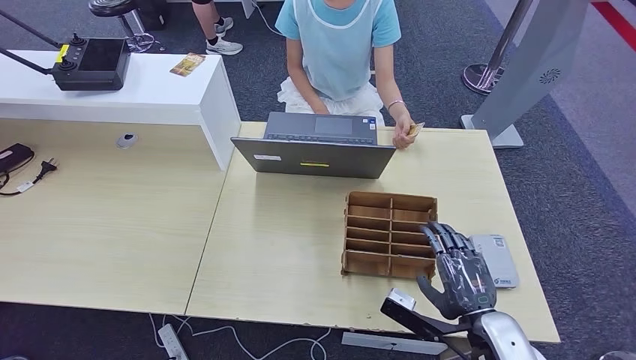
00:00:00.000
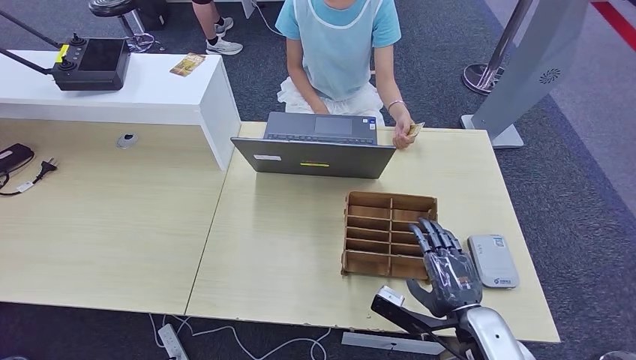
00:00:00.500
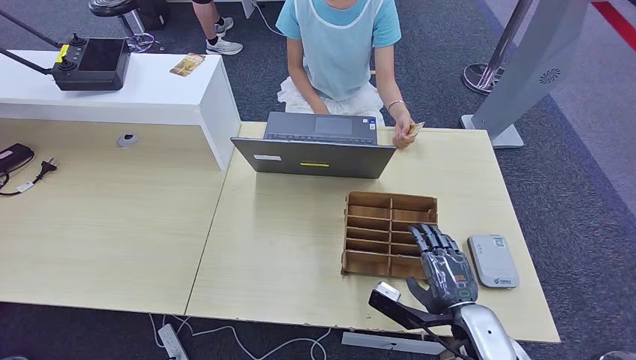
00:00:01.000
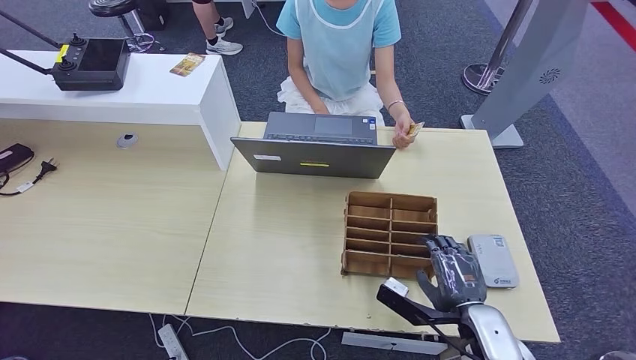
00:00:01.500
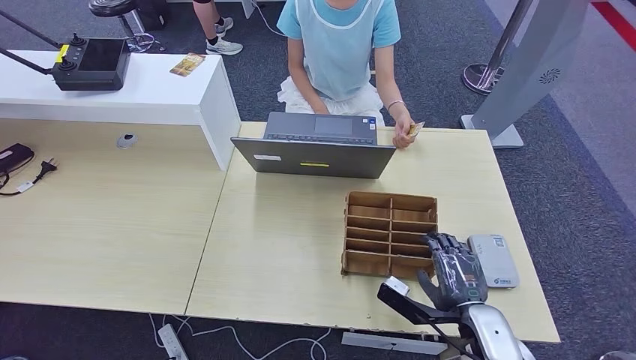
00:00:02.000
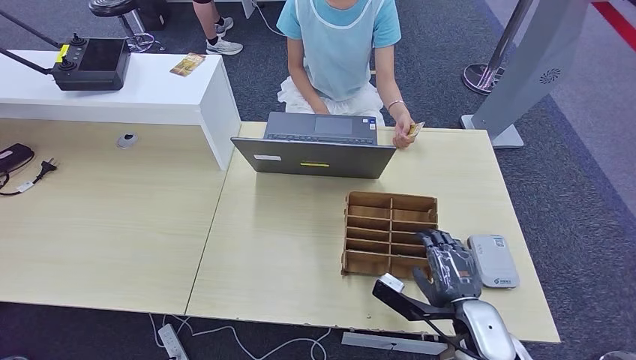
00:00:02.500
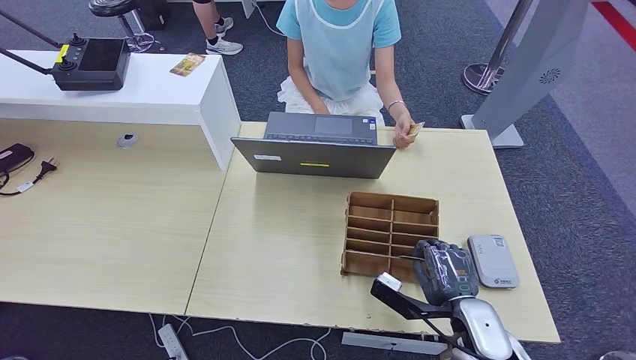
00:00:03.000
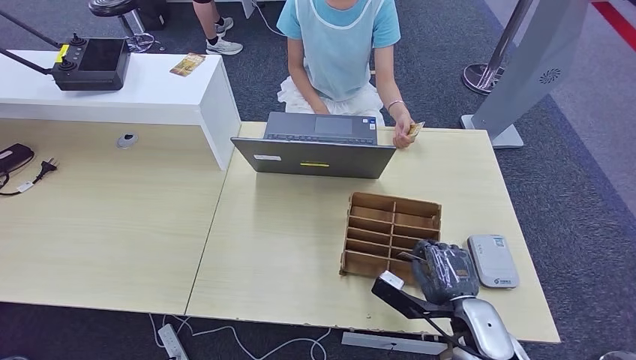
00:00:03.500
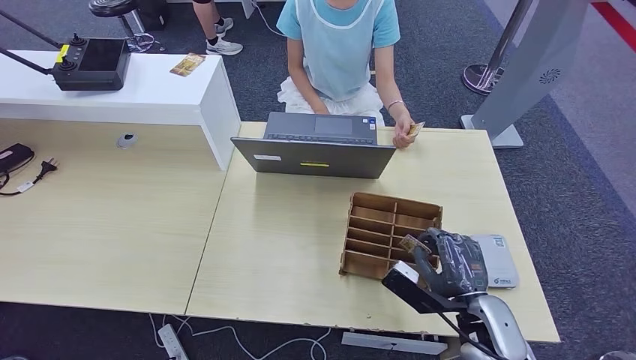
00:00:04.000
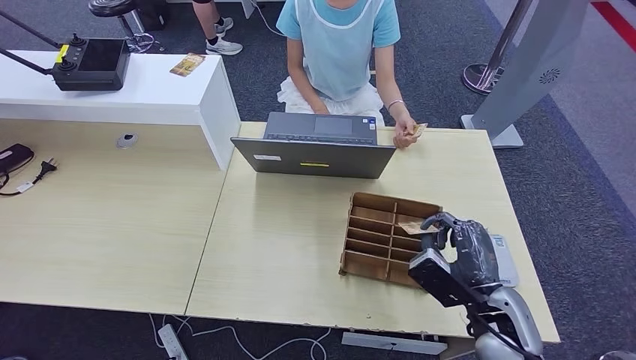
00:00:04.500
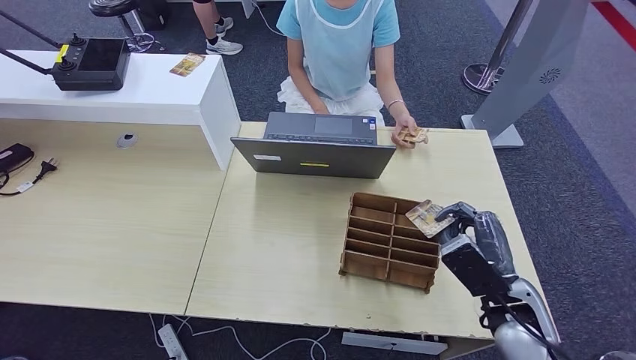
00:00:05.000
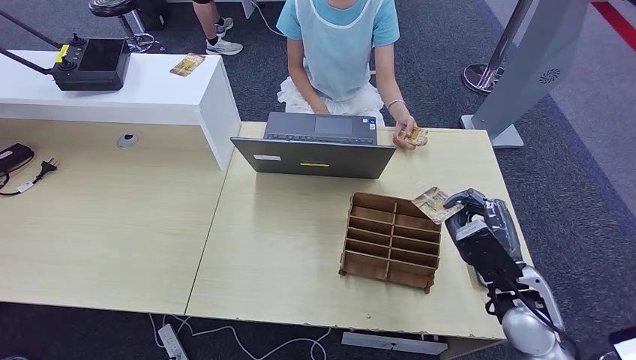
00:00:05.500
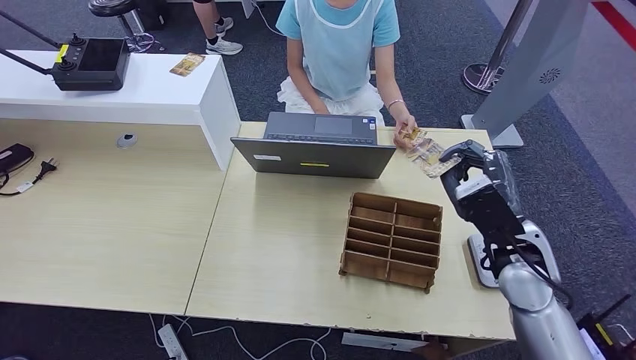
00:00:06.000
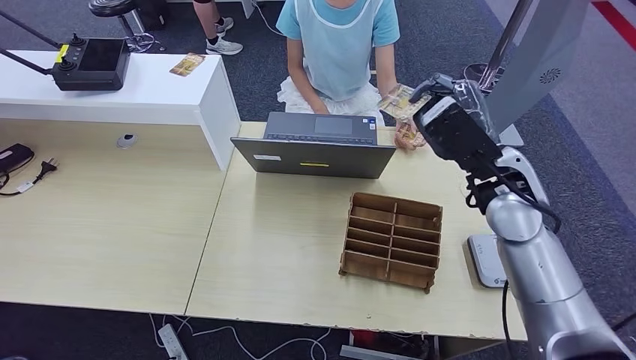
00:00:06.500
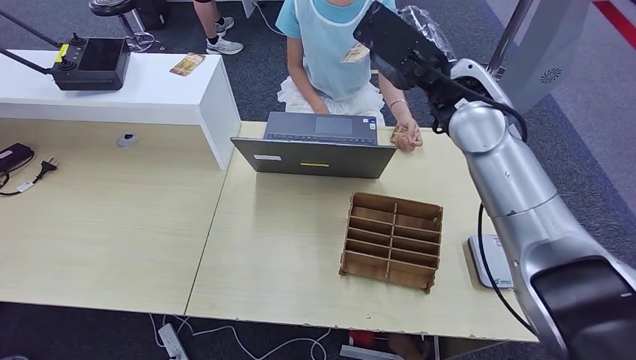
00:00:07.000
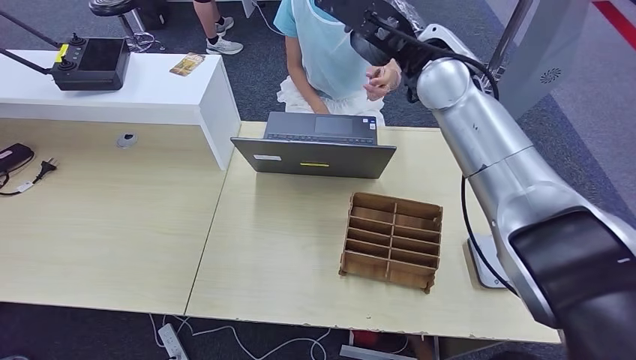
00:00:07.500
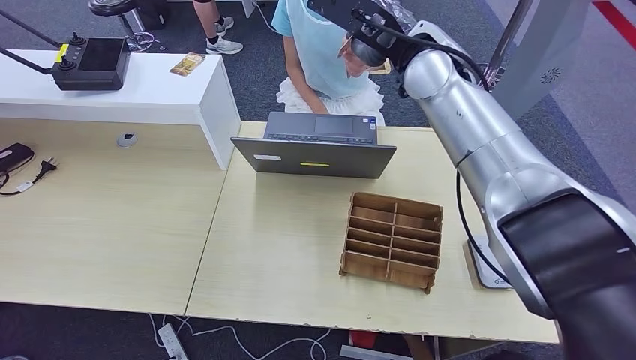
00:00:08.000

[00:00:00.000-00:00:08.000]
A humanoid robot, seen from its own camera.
Step, 00:00:00.000 to 00:00:04.500: Pick up the room key from the key card box.
Step, 00:00:05.000 to 00:00:08.000: Hand the room key to the person.
00:00:00.000 to 00:00:04.000: The hands stay close to where they were, moving slightly.
00:00:04.000 to 00:00:06.000: The right hand heads upward and forward, covering approximately 15 cm.
